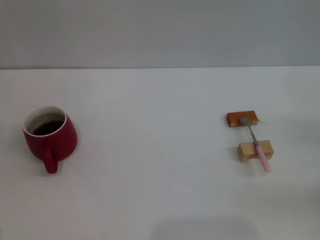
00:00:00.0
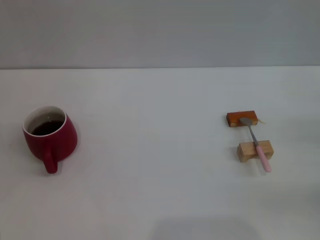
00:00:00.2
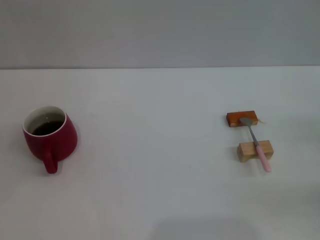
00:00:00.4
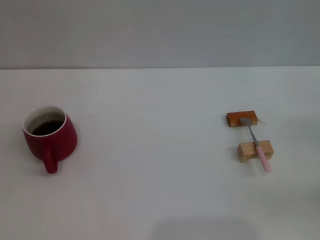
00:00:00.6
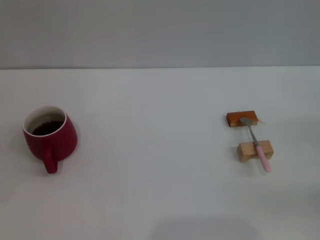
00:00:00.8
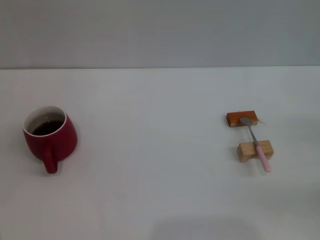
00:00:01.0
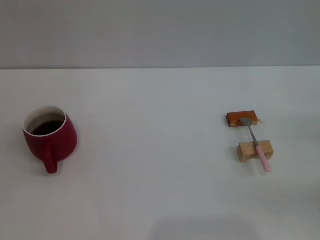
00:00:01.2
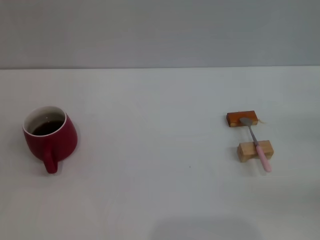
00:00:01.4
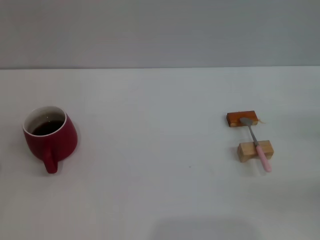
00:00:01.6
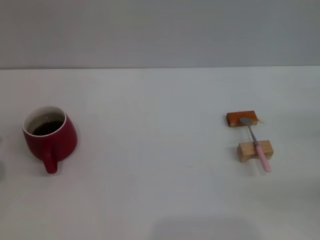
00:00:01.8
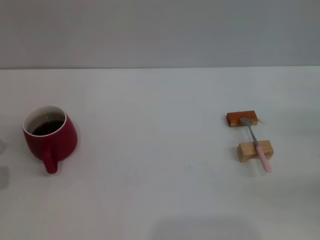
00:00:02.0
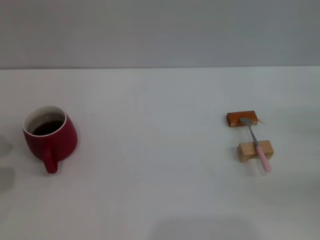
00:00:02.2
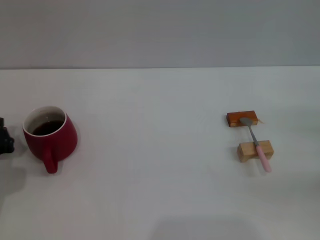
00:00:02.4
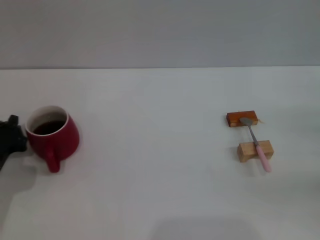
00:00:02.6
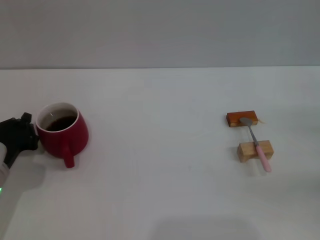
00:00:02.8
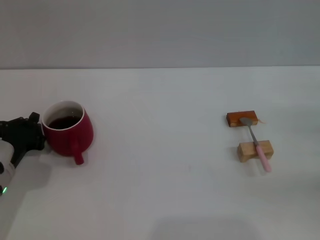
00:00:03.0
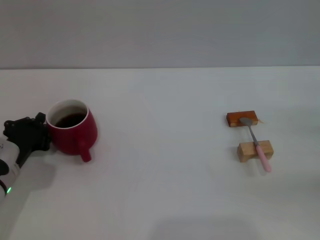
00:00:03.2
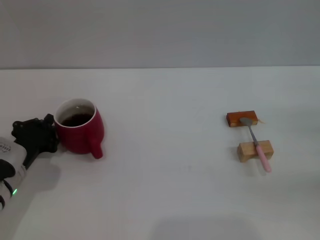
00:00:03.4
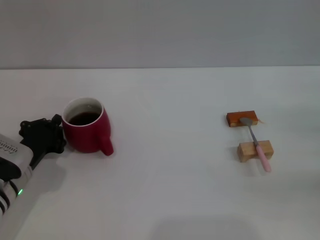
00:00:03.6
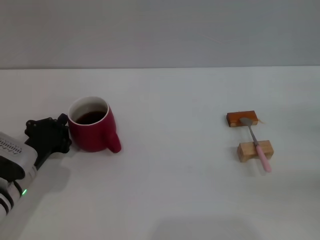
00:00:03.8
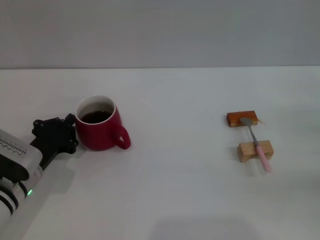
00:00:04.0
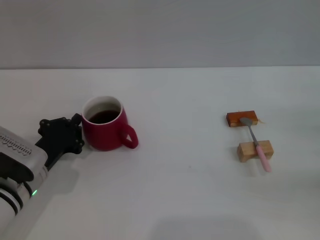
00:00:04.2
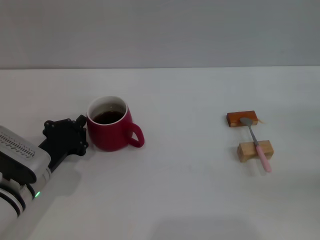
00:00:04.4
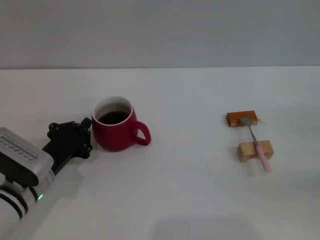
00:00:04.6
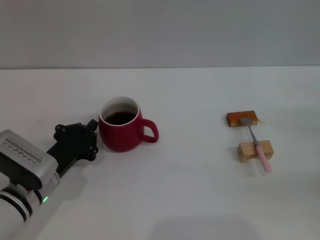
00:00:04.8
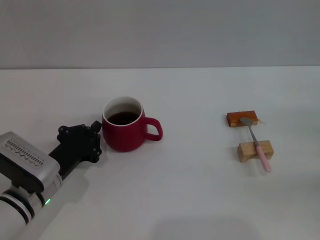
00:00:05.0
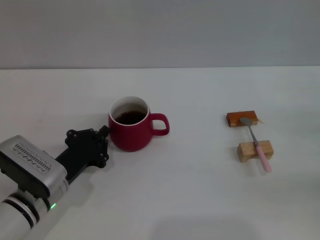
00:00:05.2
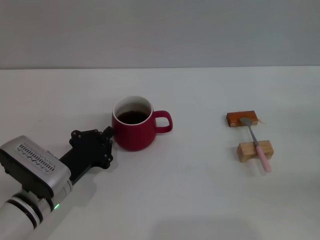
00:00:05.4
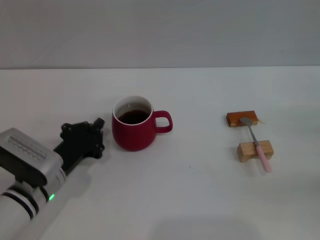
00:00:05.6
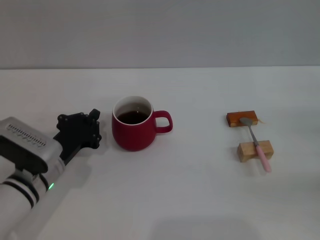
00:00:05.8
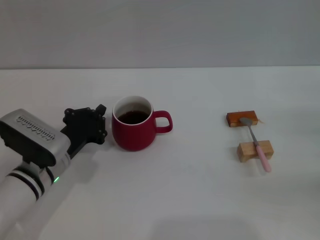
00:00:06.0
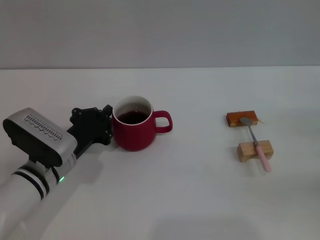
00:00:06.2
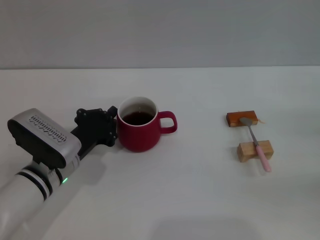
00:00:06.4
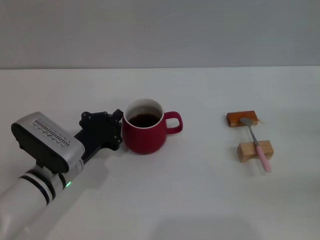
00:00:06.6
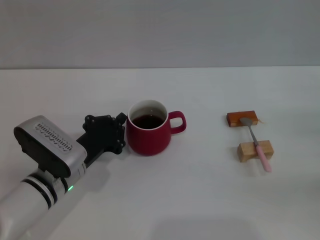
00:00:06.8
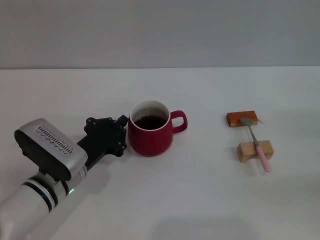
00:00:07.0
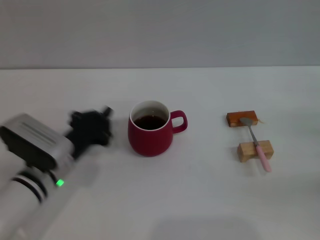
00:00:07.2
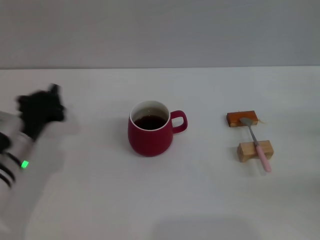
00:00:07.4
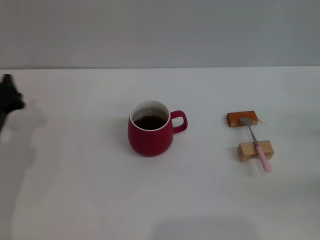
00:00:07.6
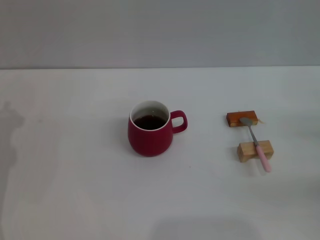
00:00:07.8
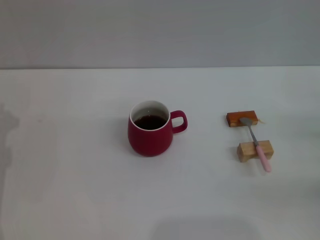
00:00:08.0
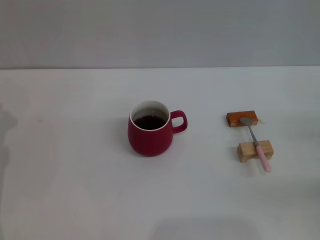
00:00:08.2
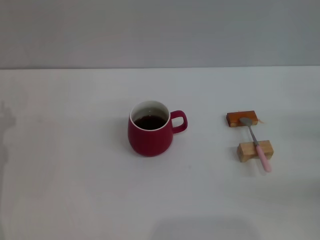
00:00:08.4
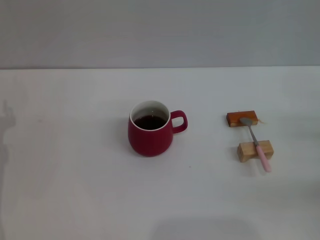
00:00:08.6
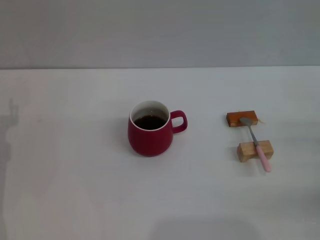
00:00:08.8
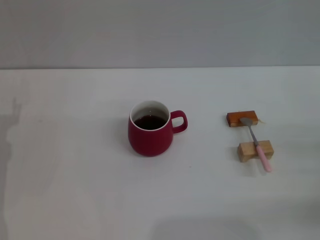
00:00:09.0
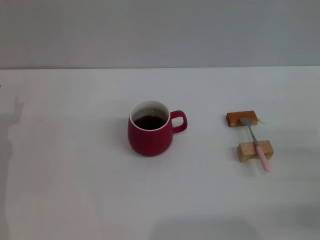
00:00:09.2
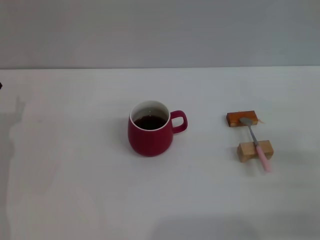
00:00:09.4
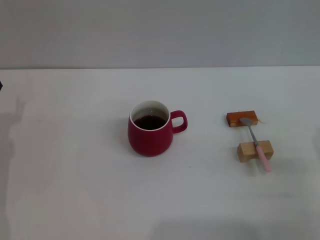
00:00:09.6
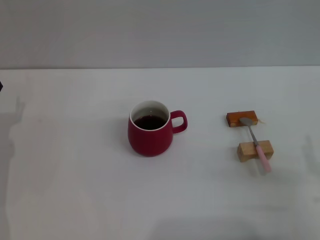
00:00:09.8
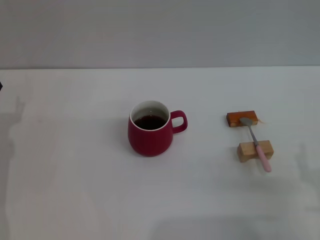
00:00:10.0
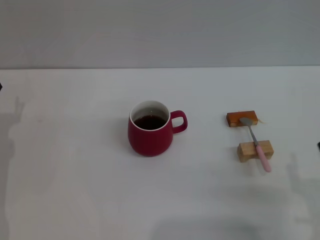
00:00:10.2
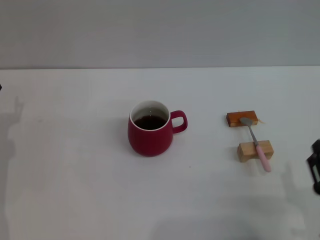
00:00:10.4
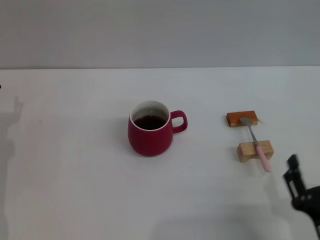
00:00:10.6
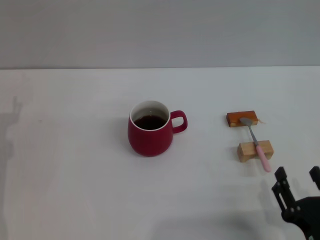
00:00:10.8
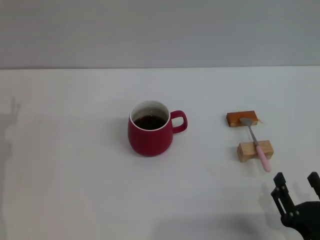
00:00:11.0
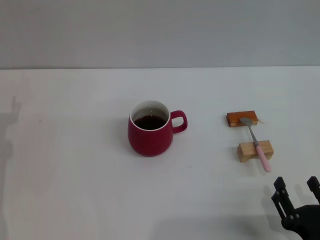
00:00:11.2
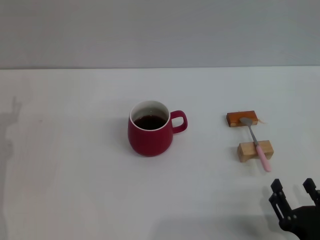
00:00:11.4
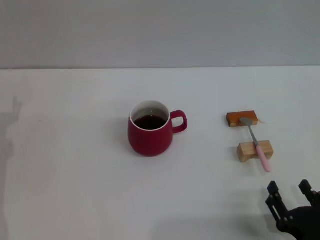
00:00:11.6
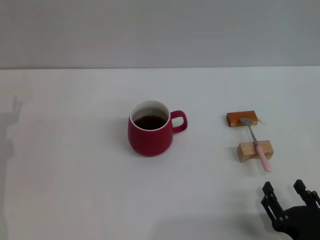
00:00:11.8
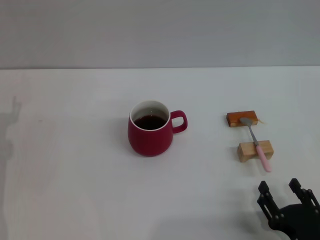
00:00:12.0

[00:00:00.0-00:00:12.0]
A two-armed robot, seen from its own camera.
Task of the whole recording: Move the red cup to the center, lift the pink spoon, stir it three times in the cup, and put the spoon into the cup.
Step, 00:00:00.0 to 00:00:07.0: Move the cup with coffee to the center of view with the left gripper.
00:00:01.6 to 00:00:03.0: The left gripper is displaced to the right by roughly 5 cm.
00:00:03.0 to 00:00:04.4: The grippers make only small movements.
00:00:04.4 to 00:00:06.0: There are only small adjustments of the grippers.
00:00:06.0 to 00:00:07.6: The left gripper moves to the left, some 10 cm.
00:00:07.6 to 00:00:09.0: The left gripper opens.
00:00:09.0 to 00:00:10.4: The right gripper shifts about 20 cm to the left and backward.
00:00:10.4 to 00:00:12.0: The right gripper changes place by roughly 5 cm.

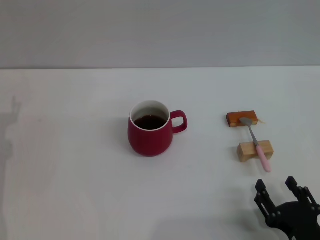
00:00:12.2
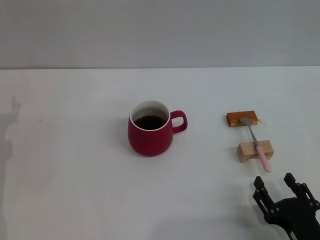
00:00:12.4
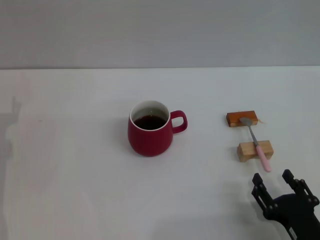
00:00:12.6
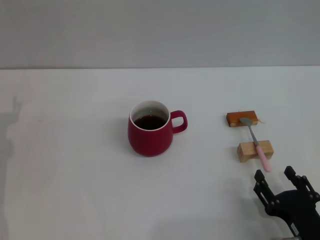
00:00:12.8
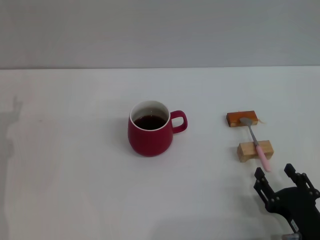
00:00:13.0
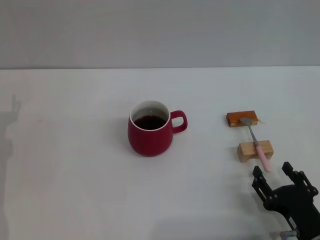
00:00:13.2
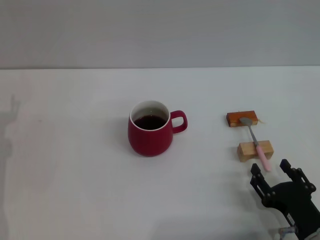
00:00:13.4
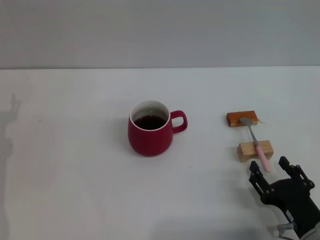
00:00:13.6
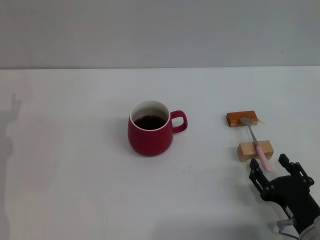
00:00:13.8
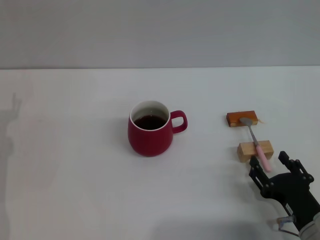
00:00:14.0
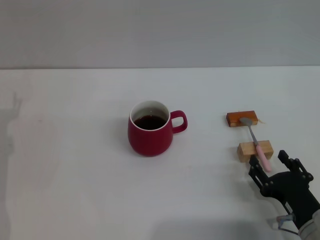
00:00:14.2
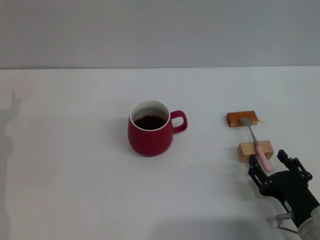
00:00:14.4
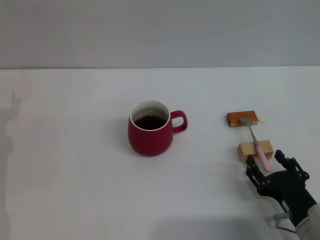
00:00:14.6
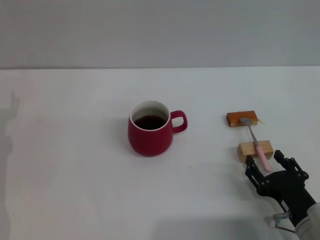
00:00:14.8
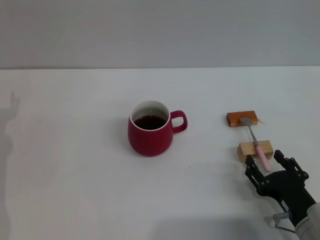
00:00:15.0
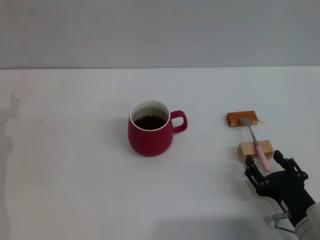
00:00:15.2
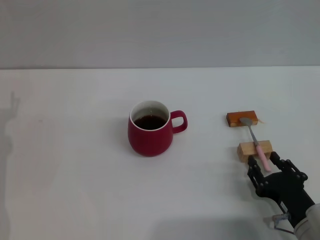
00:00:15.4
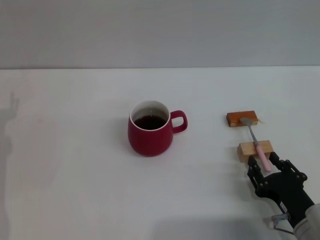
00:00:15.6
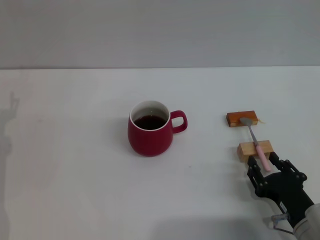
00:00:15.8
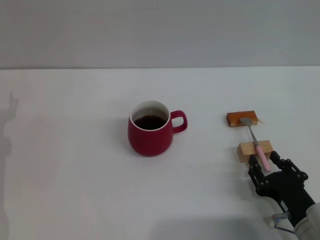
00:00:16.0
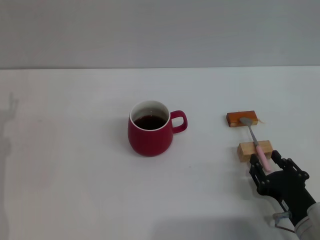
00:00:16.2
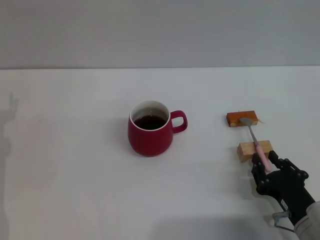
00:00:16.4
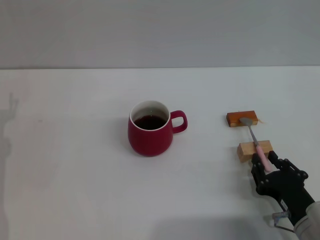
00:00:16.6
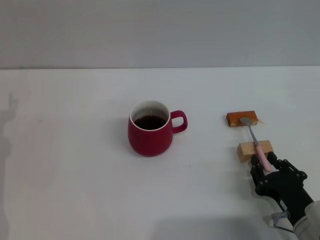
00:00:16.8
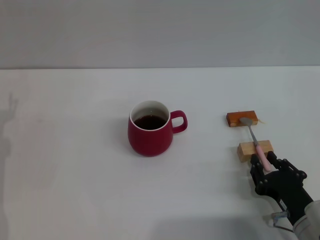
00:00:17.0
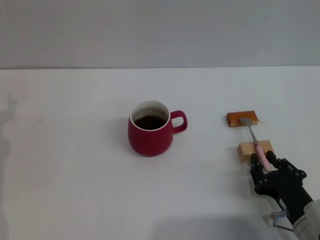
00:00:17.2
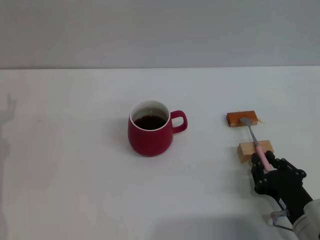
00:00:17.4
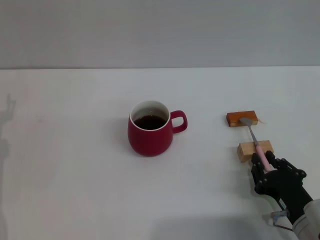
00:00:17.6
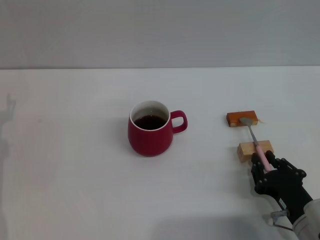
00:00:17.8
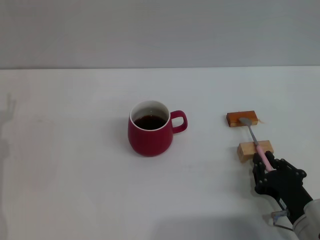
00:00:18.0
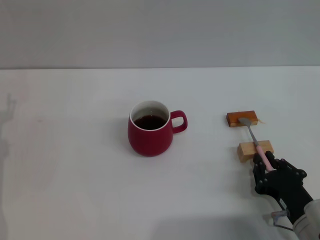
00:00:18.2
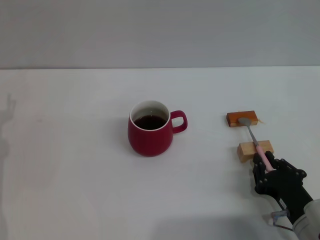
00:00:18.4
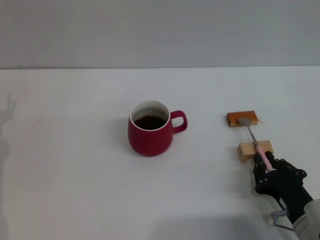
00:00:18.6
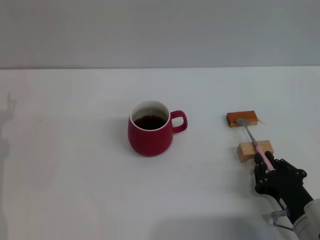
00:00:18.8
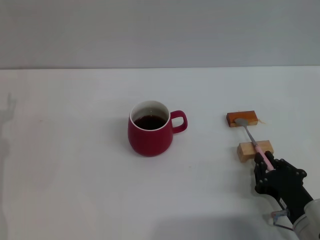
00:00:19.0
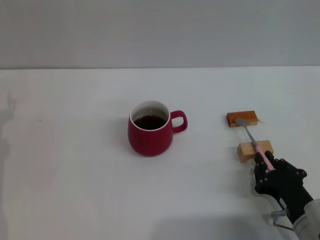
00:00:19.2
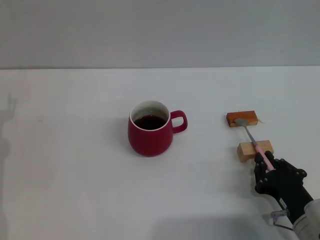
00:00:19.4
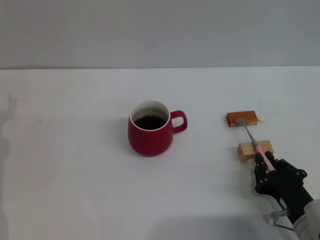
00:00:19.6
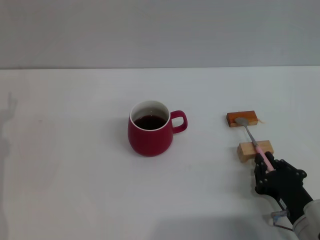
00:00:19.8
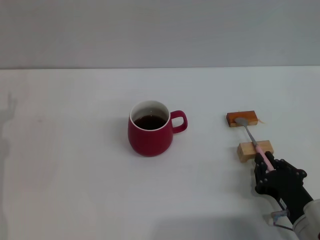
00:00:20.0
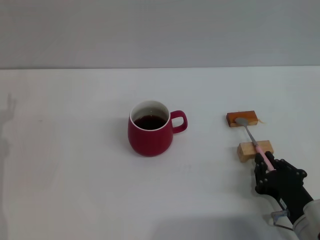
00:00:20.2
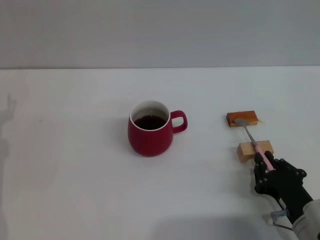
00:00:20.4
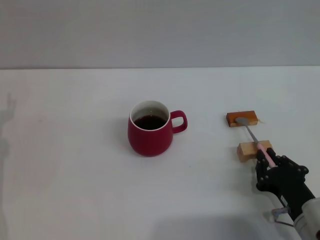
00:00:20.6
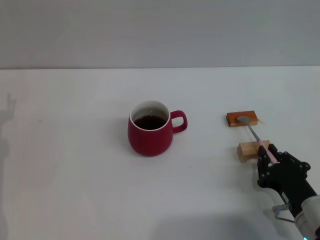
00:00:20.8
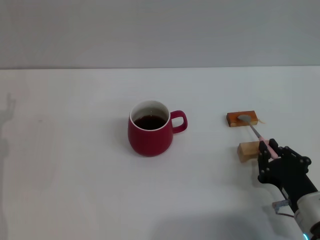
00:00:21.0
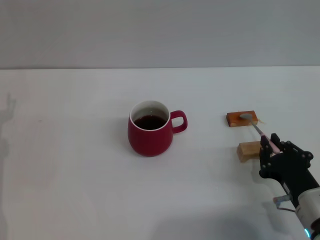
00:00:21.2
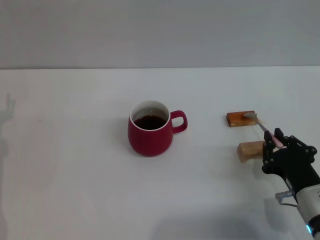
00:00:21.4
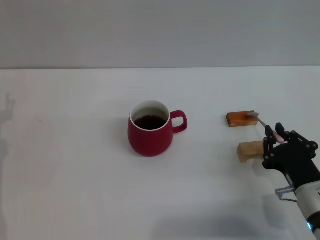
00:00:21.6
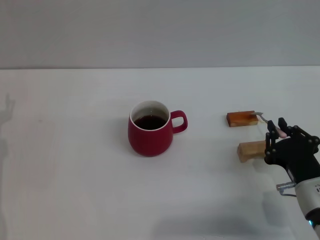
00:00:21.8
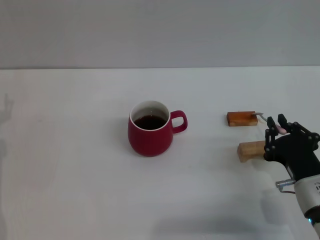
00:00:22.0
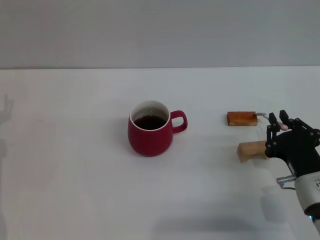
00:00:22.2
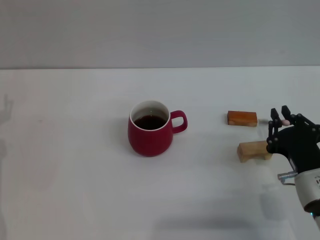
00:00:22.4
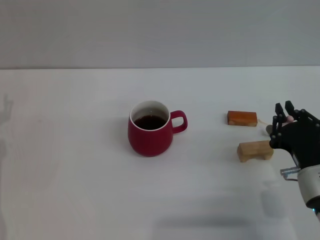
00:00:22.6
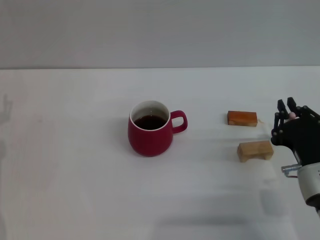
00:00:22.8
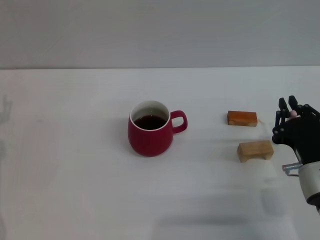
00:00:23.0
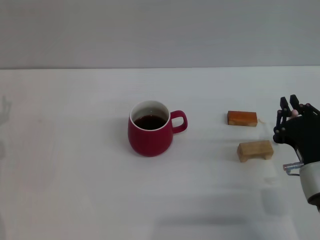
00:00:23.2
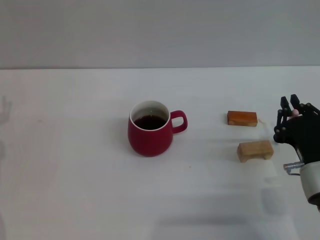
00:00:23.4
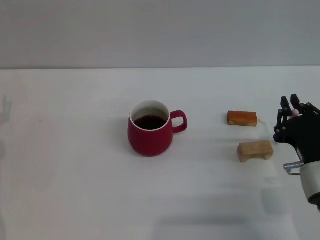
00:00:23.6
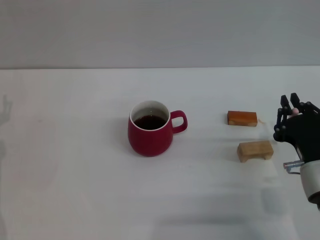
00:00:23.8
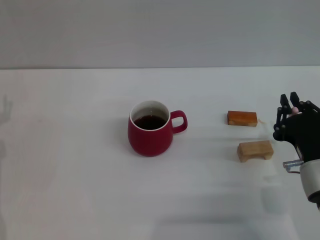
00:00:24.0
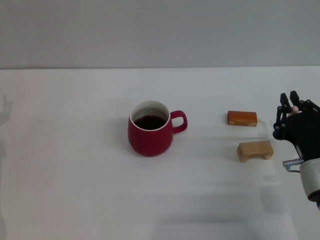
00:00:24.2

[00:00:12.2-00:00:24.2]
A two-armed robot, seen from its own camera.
Task of the whole recording: Move the red cup to the center, lift the pink spoon, stir it three times in the cup, and put the spoon into the cup.
00:00:12.2 to 00:00:13.8: The right gripper goes approximately 5 cm forward.
00:00:13.8 to 00:00:15.2: Both grippers stay about where they are.
00:00:15.2 to 00:00:16.6: The right gripper closes.
00:00:16.6 to 00:00:19.8: The two grippers keep their place.
00:00:19.8 to 00:00:21.2: The grippers make only small movements.
00:00:21.2 to 00:00:22.6: The grippers make only small movements.
00:00:22.6 to 00:00:24.2: The two grippers keep their place.
